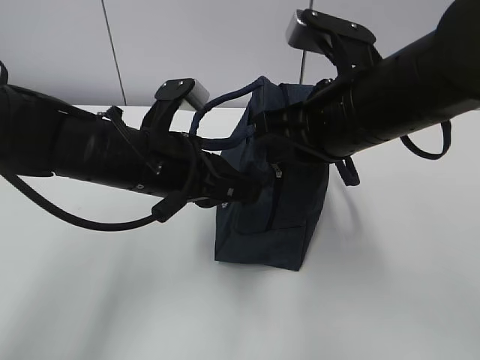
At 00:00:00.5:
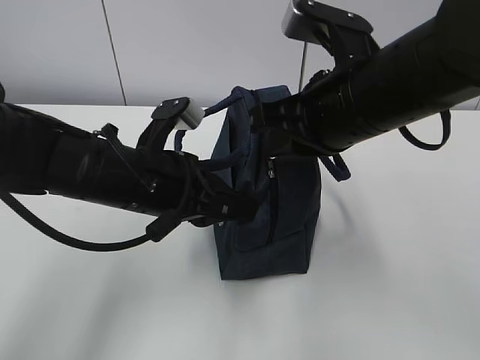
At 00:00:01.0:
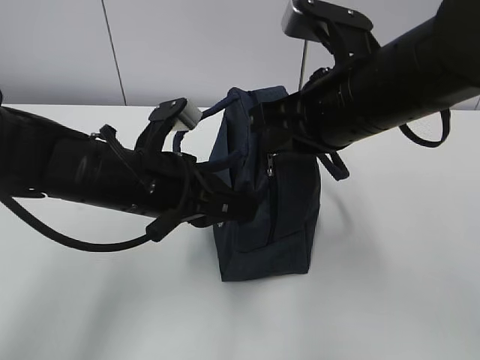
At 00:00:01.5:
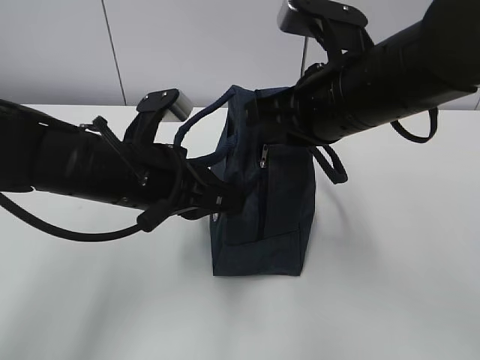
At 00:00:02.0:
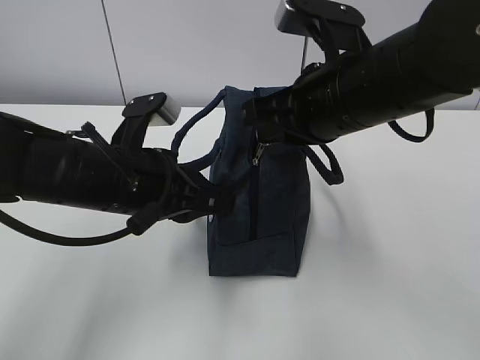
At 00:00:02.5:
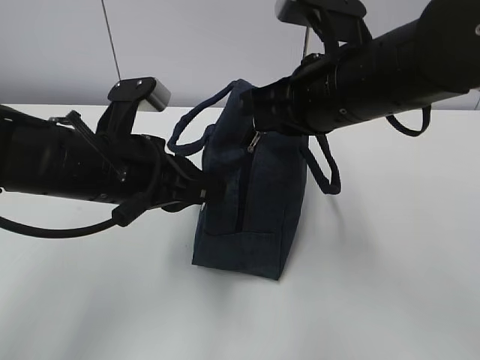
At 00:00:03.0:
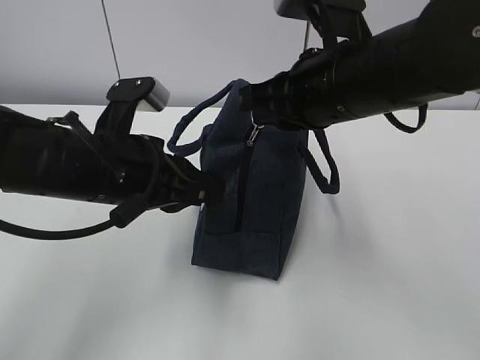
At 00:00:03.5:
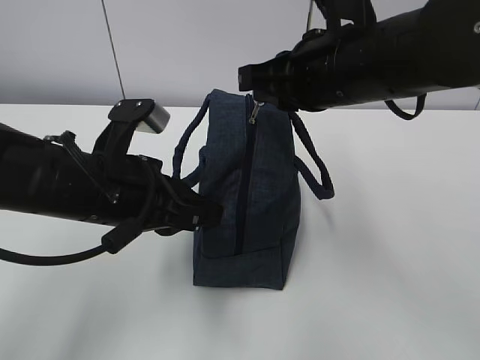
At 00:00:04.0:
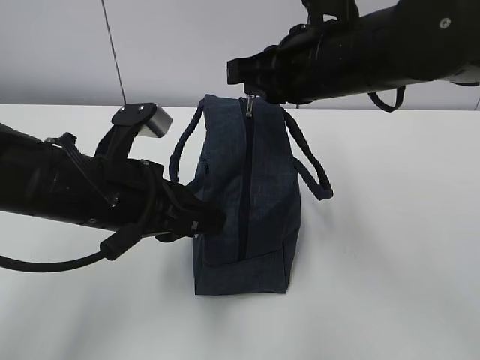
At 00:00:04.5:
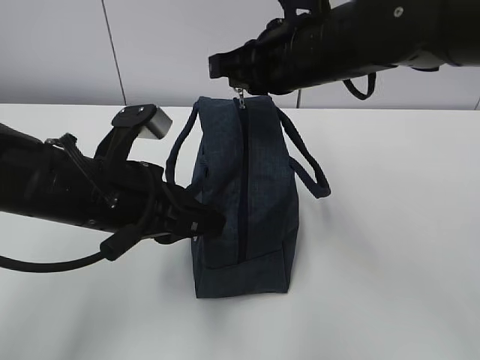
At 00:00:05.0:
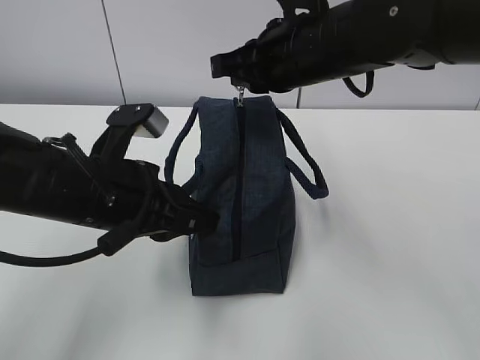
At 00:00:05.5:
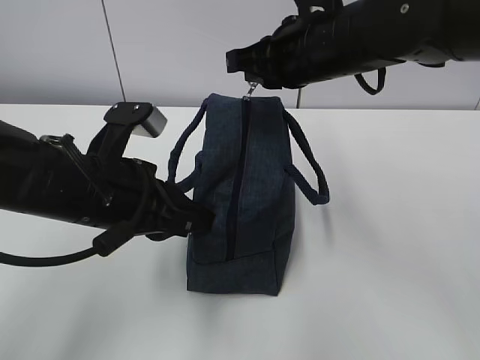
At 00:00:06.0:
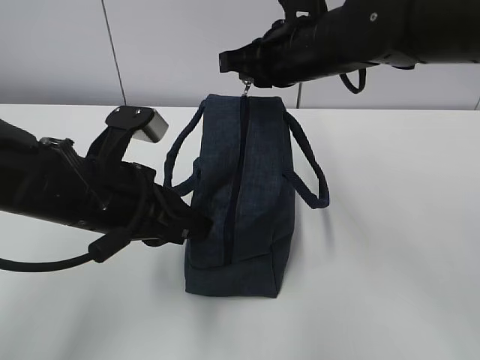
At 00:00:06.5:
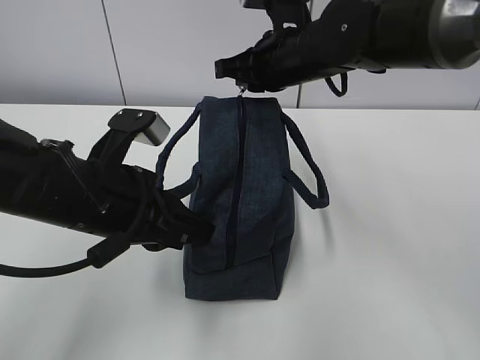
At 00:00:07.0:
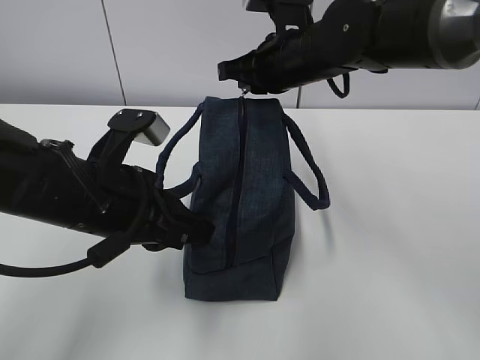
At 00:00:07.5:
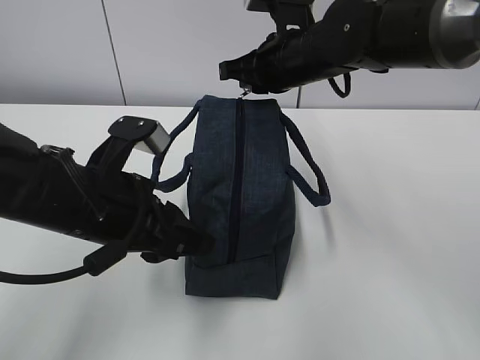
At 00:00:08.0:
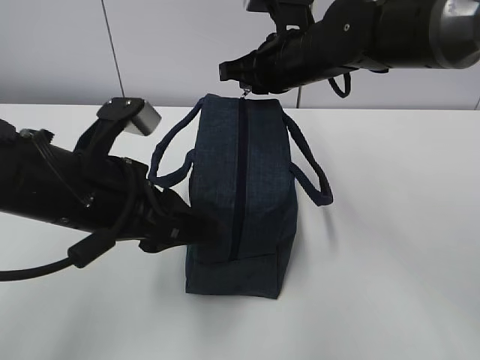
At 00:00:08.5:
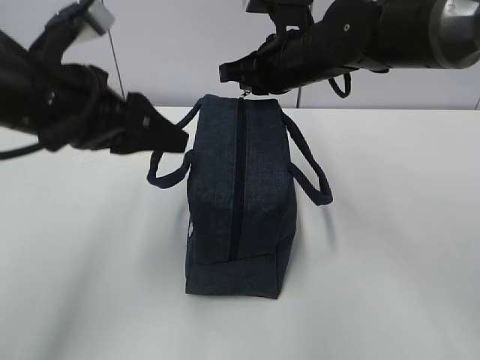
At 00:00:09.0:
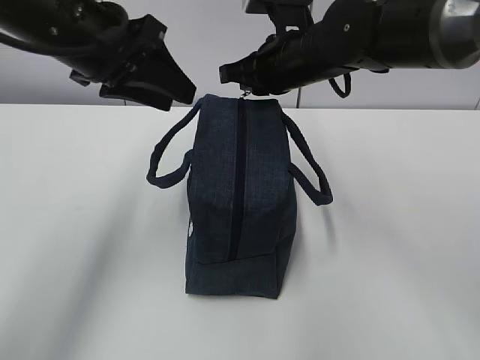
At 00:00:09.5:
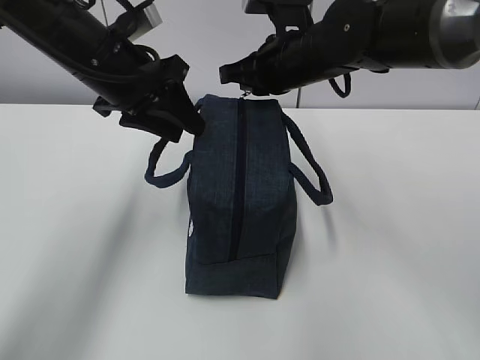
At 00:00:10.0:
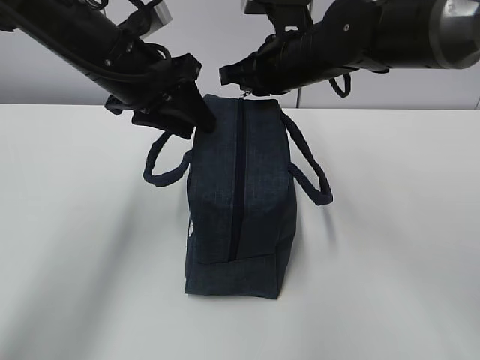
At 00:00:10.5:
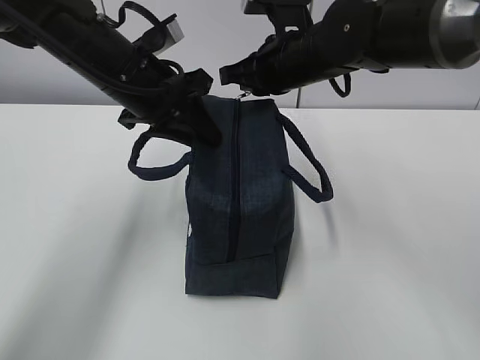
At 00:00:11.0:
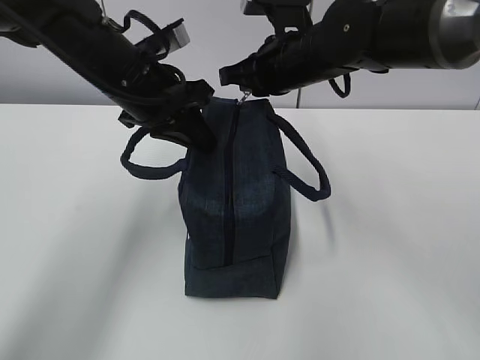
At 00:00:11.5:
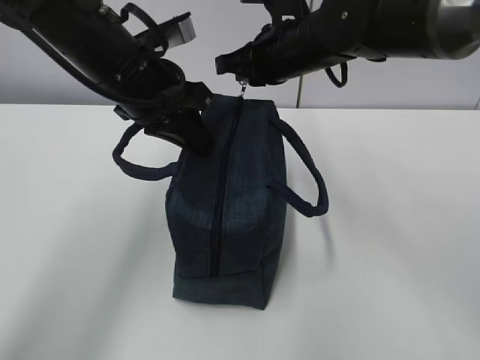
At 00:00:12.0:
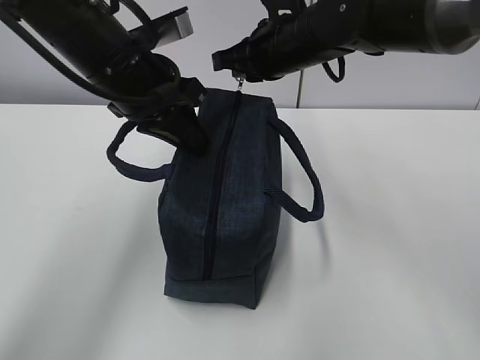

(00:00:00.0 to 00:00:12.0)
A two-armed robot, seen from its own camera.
Step, 00:00:00.0 - 00:00:02.0: Pull the zipper with your right hand.
Step, 00:00:02.5 - 00:00:05.0: Grab the lunch bag with your left hand.
00:00:04.0 - 00:00:06.0: The right gripper shifts roughly 5 cm forward.
00:00:06.0 - 00:00:08.0: The left gripper opens.
00:00:08.0 - 00:00:10.0: The left gripper travels forward by approximately 15 cm.
00:00:10.0 - 00:00:12.0: The left gripper closes its fingers.

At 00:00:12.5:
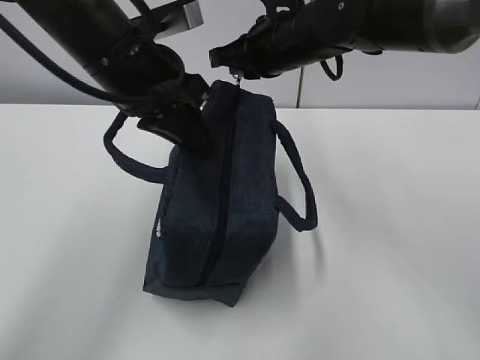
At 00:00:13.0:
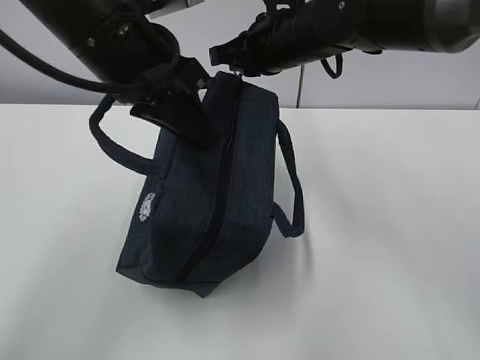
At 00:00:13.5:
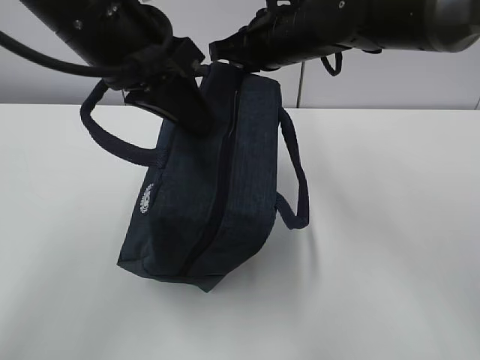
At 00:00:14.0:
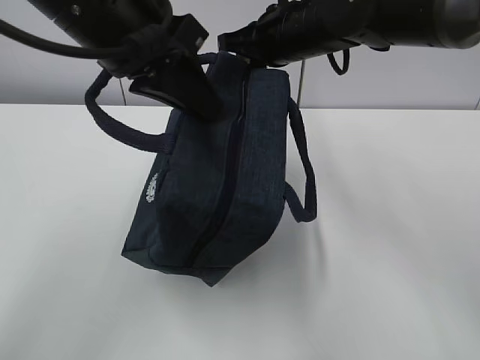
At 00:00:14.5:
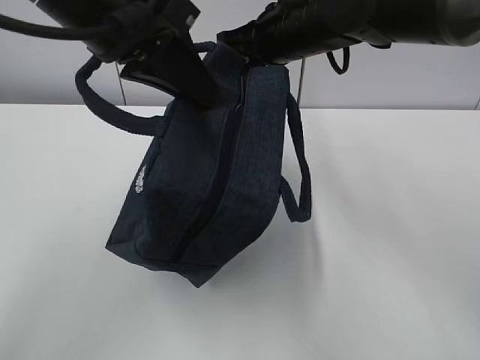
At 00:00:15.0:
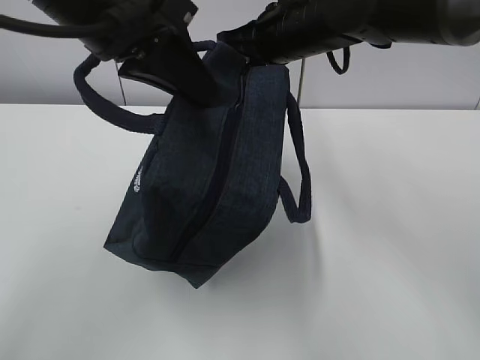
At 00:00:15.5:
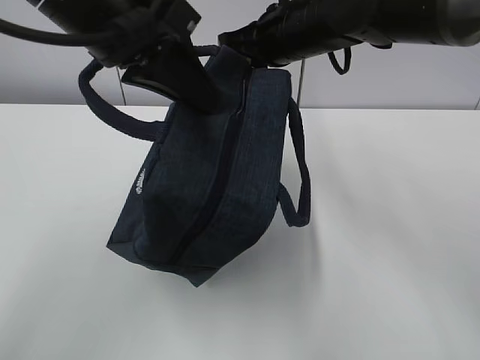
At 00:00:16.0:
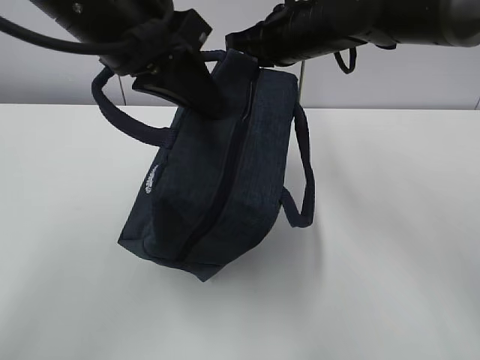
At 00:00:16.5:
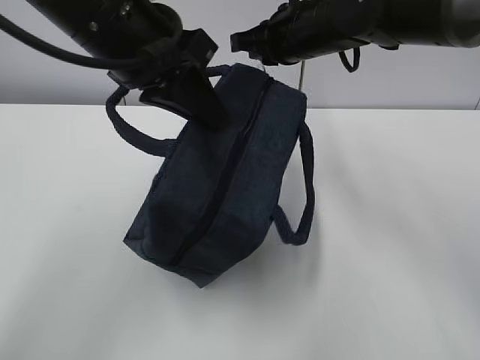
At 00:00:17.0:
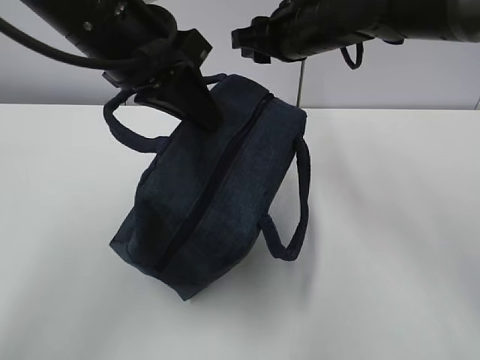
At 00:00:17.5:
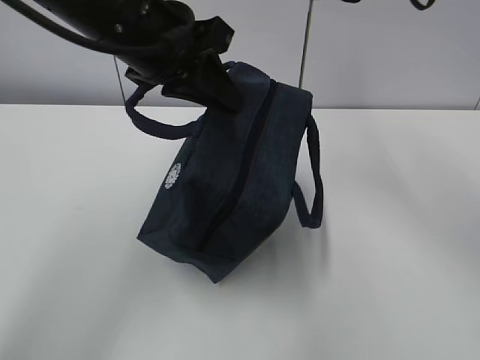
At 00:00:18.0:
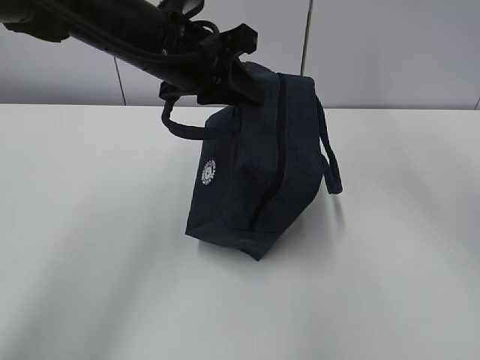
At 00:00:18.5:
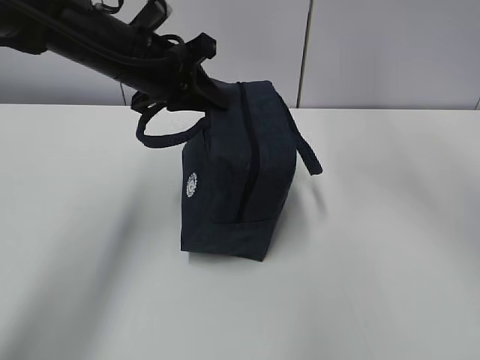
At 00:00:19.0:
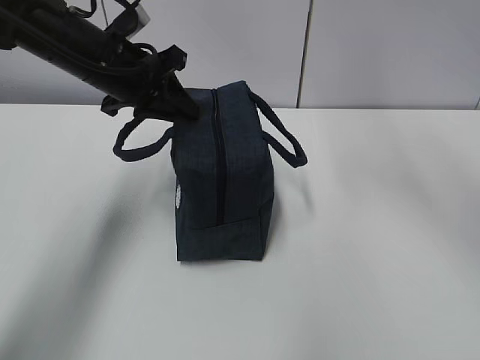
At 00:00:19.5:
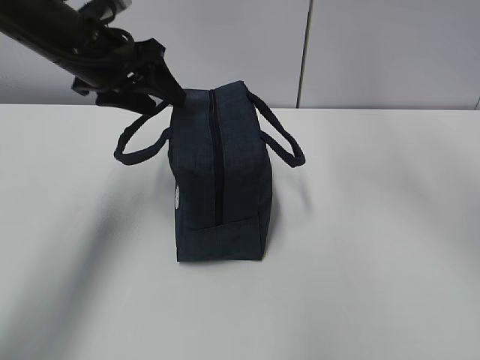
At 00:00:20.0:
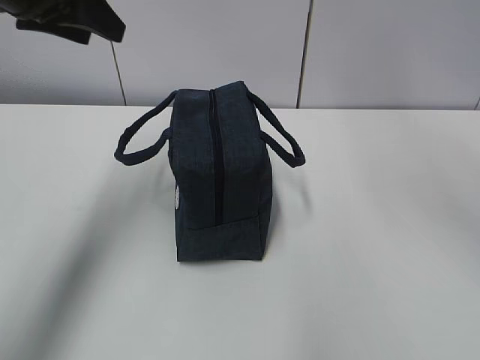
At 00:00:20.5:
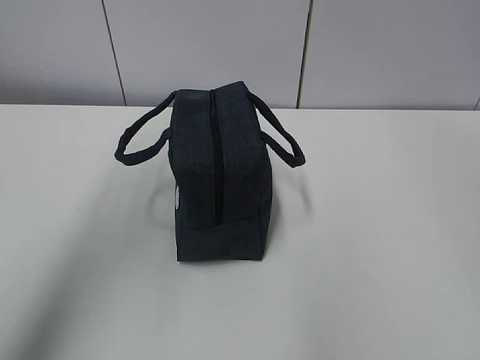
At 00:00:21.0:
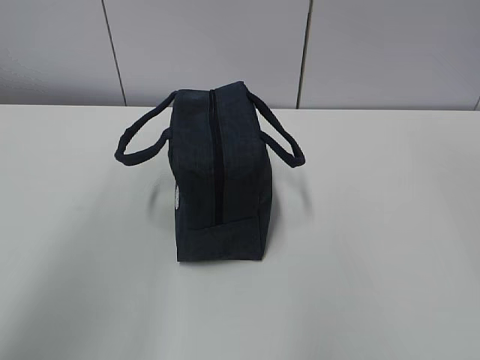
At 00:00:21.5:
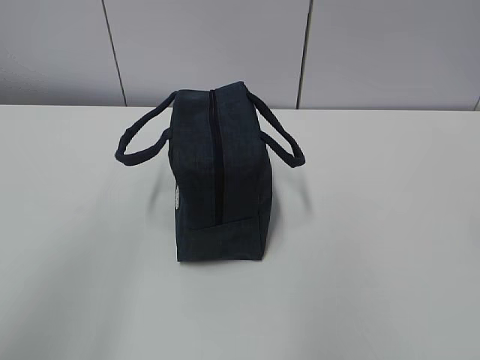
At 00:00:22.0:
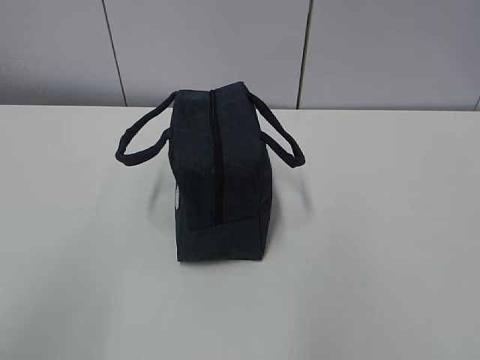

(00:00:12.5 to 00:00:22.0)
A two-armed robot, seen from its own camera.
00:00:12.5 - 00:00:14.5: The left gripper goes roughly 5 cm upward.
00:00:14.5 - 00:00:16.5: The grippers make only small movements.
00:00:16.5 - 00:00:18.0: The right gripper moves upward, to the right and backward, roughly 15 cm, and opens its fingers, while the left gripper travels forward by approximately 5 cm.
00:00:18.0 - 00:00:20.0: The left gripper moves to the left and upward, approximately 15 cm, and opens, while the right gripper is displaced upward and backward by approximately 10 cm.
00:00:20.0 - 00:00:22.0: The left gripper travels backward by approximately 35 cm.
